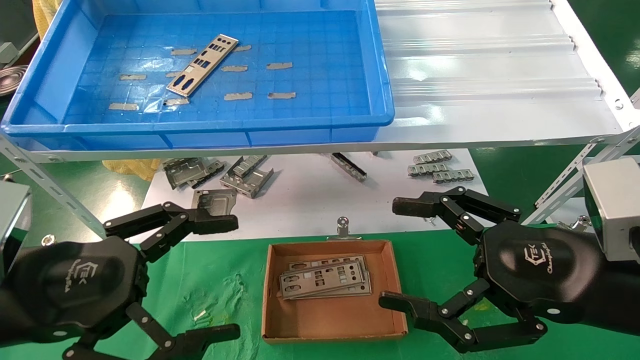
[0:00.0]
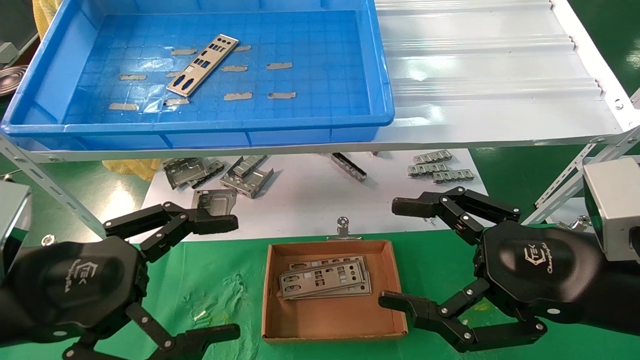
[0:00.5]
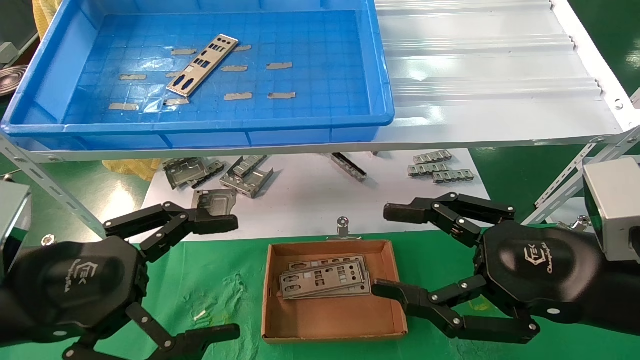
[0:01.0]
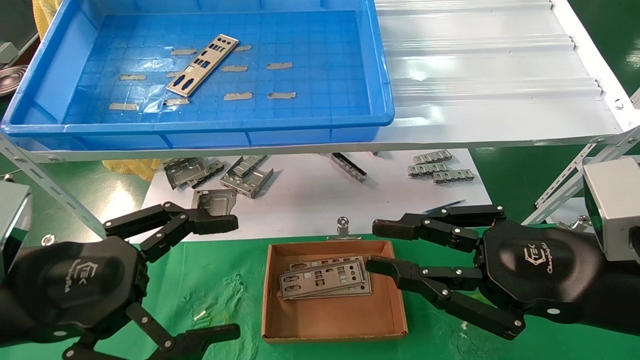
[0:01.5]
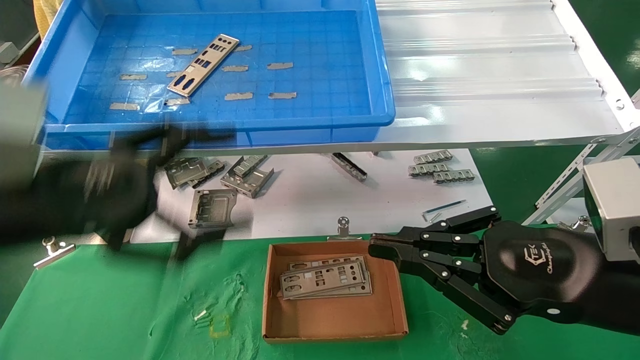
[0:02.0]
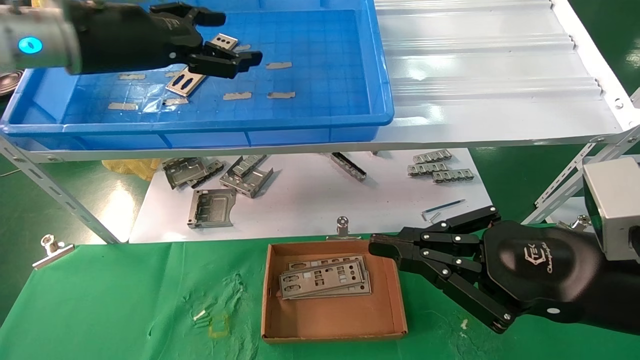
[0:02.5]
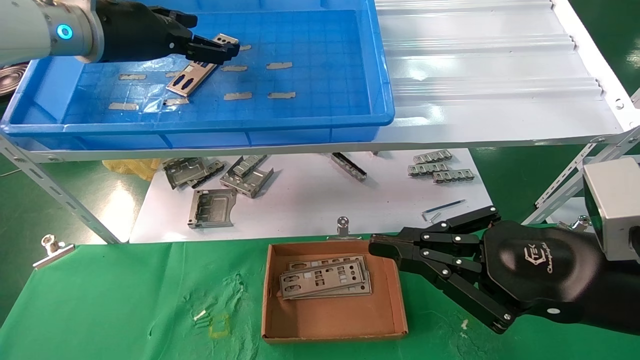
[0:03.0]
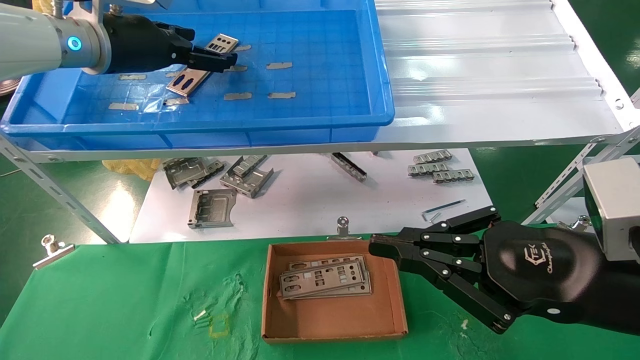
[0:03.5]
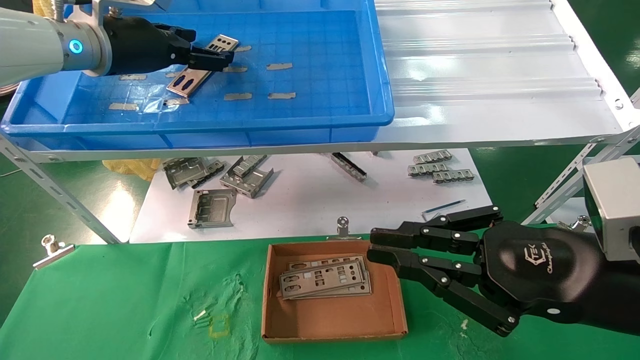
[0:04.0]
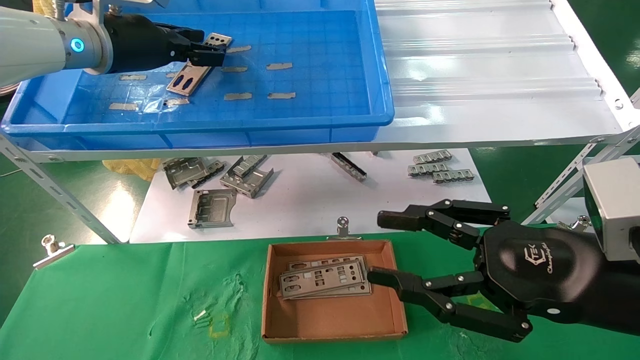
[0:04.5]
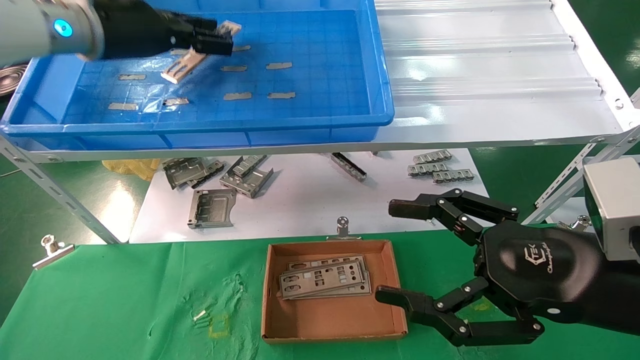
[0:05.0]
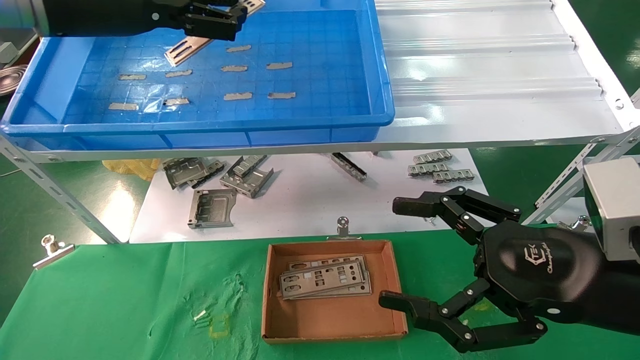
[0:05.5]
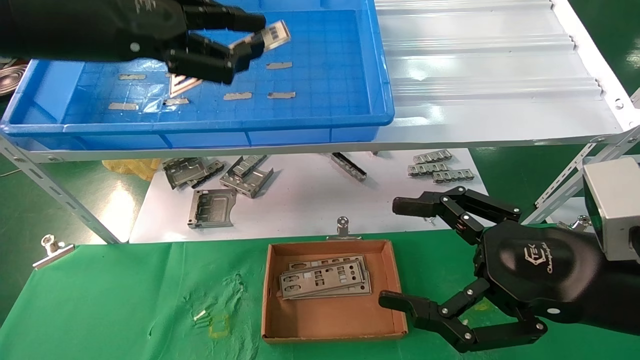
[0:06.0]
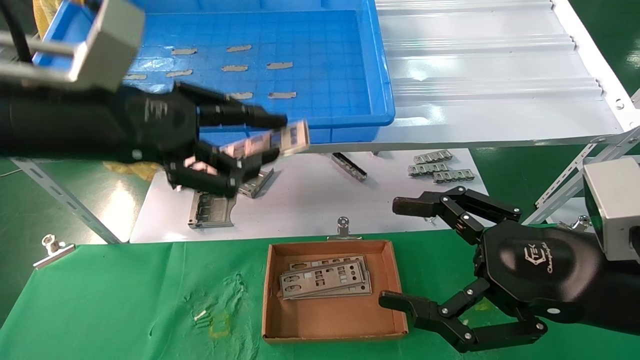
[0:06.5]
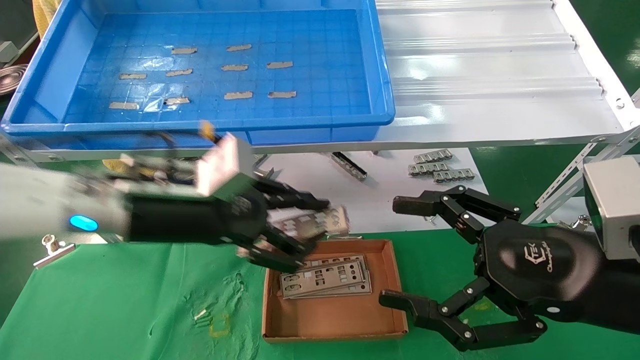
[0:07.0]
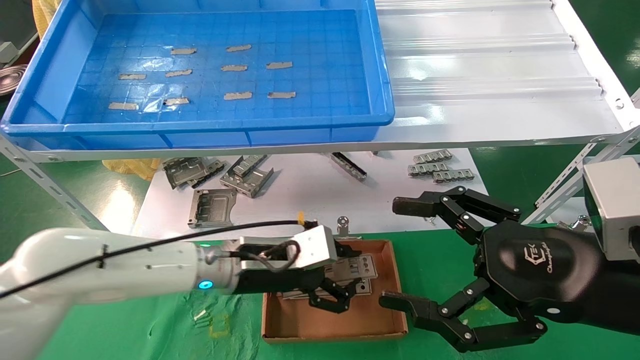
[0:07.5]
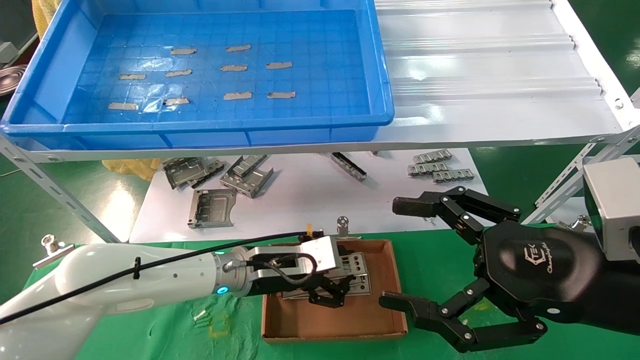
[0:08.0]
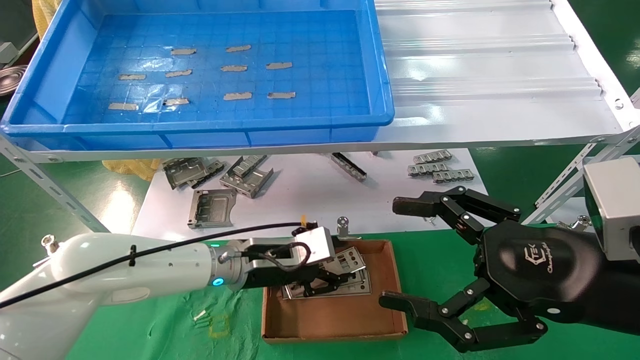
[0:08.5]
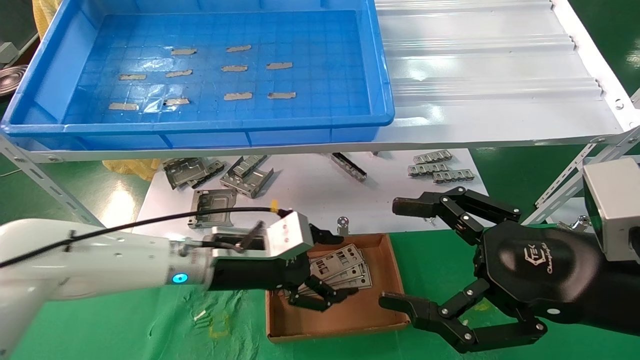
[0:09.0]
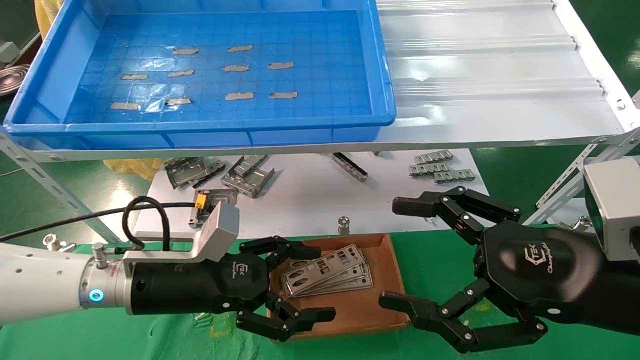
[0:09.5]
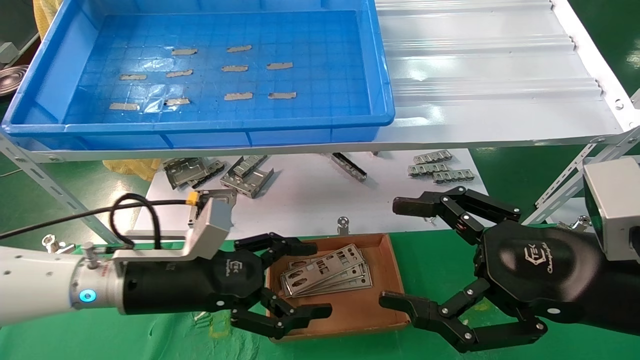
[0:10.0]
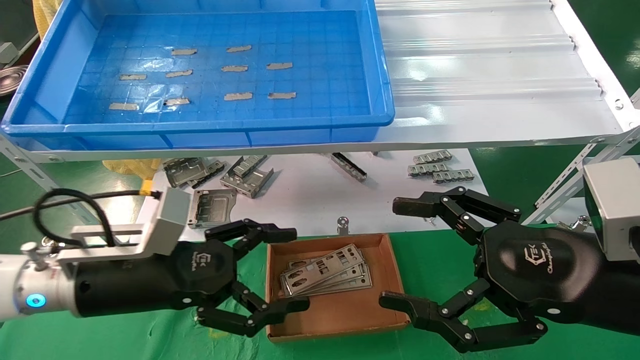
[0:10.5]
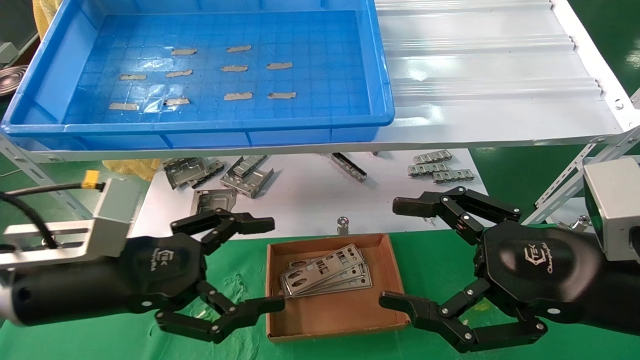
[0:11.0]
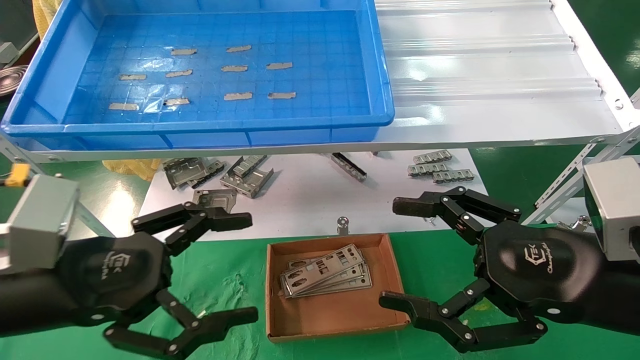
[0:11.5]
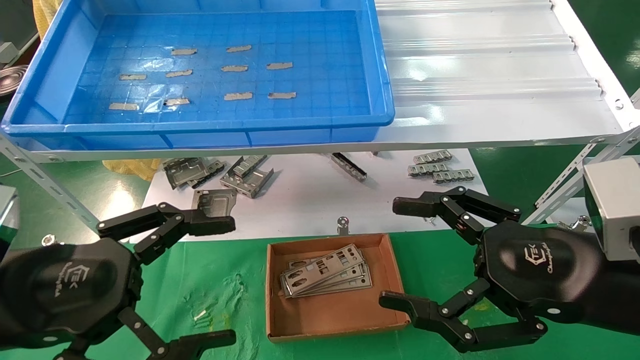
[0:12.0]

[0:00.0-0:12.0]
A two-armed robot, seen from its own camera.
Task of the whole recording: pick up the parts on the tray and put them in the cardboard box.
Step, 0:02.5 to 0:04.5: Pick up the IO bracket from the container box.
Step, 0:05.0 to 0:08.5: Place the IO bracket into the ingredient slot.
0:00.0 to 0:02.0: The right gripper closes its fingers, while the left gripper is displaced upward and forward by some 10 cm.
0:02.0 to 0:04.0: The left gripper shifts approximately 25 cm forward and upward.
0:04.0 to 0:06.0: The right gripper opens, while the left gripper travels backward by roughly 15 cm, and closes its fingers.
0:06.0 to 0:08.0: The left gripper travels downward and to the right by approximately 35 cm.
0:08.0 to 0:10.0: The left gripper heads to the left and backward, covering approximately 15 cm, and opens.
0:10.0 to 0:12.0: The left gripper moves backward, to the left and upward, some 15 cm.

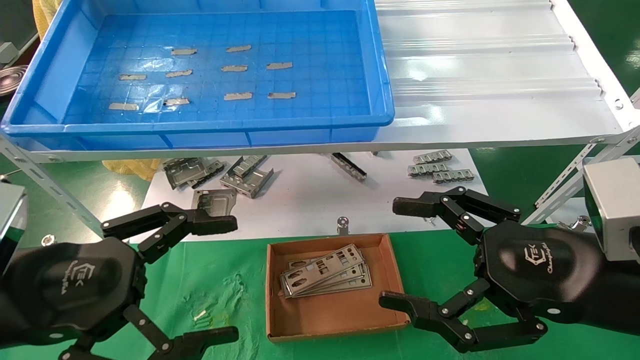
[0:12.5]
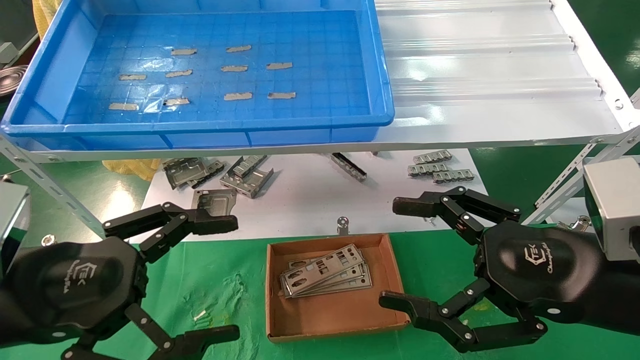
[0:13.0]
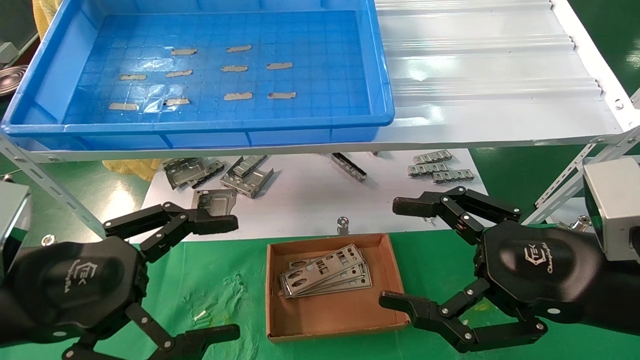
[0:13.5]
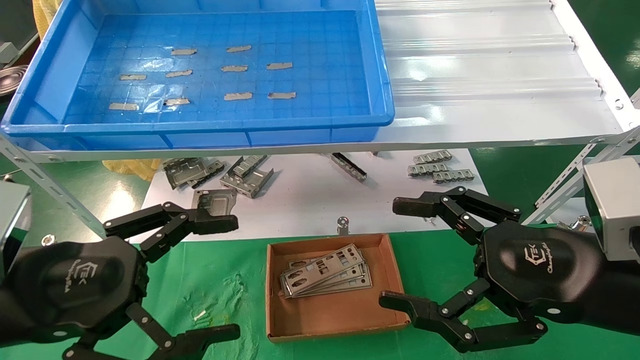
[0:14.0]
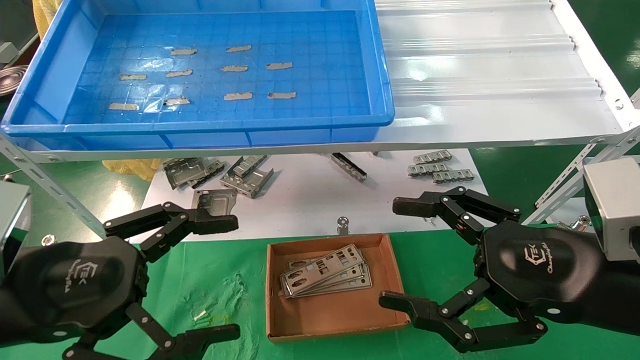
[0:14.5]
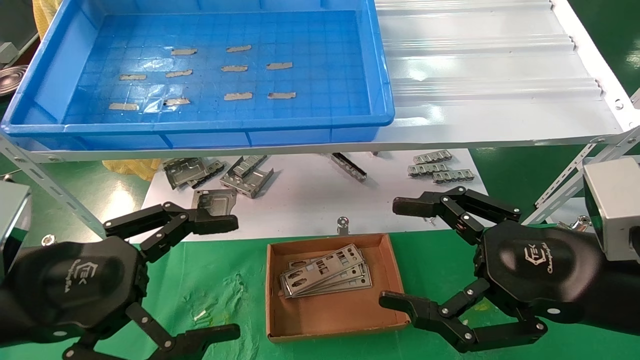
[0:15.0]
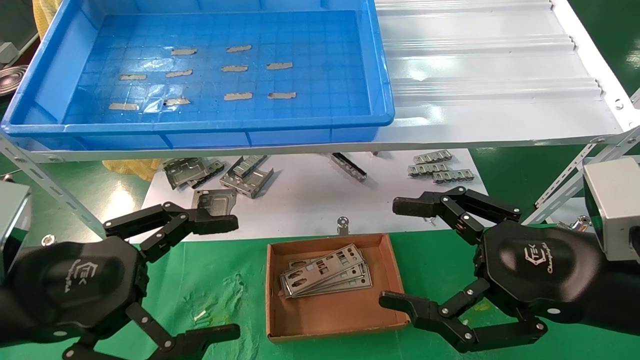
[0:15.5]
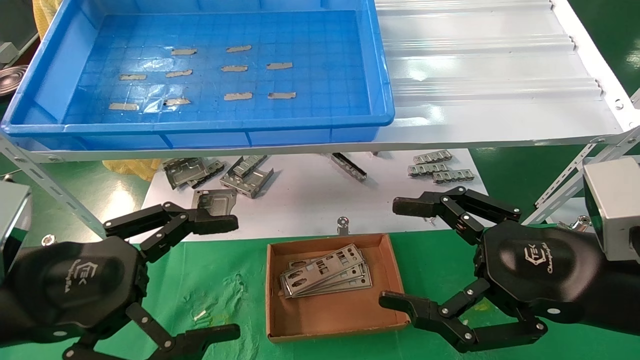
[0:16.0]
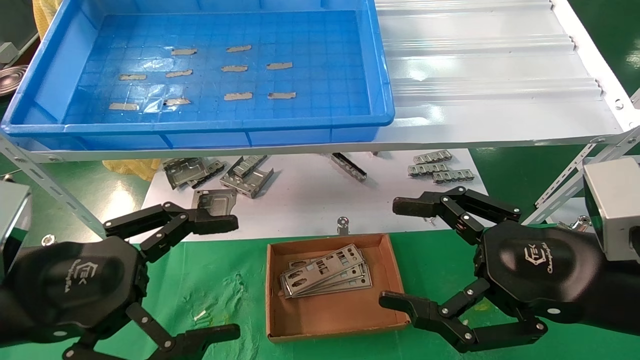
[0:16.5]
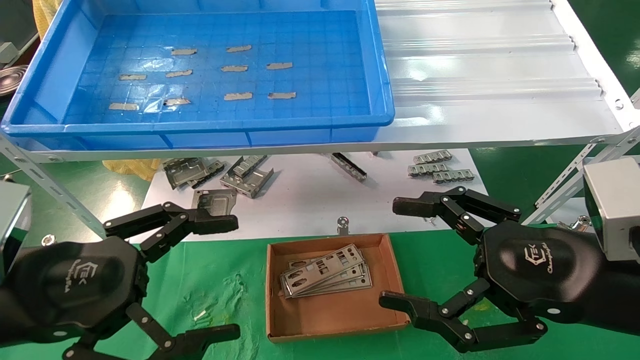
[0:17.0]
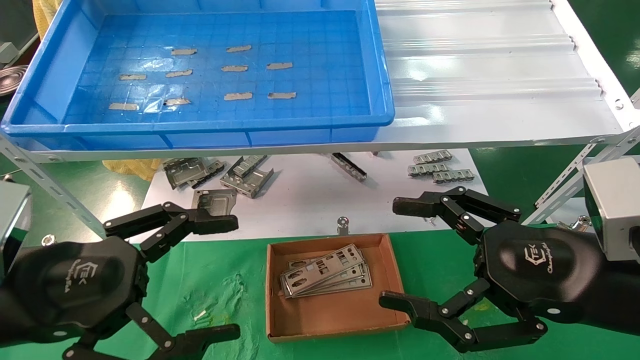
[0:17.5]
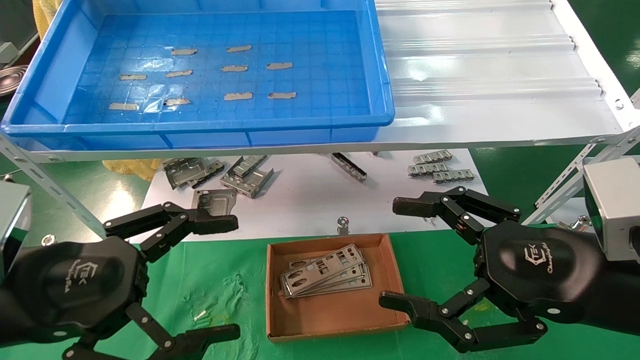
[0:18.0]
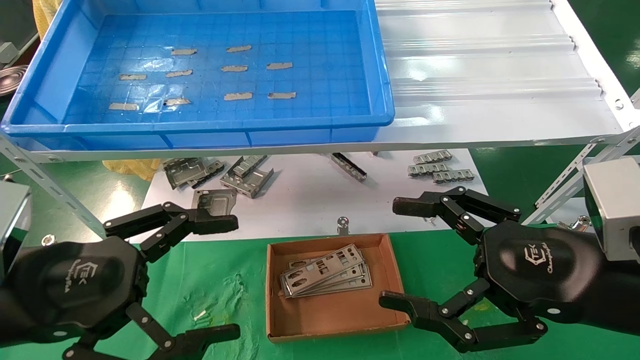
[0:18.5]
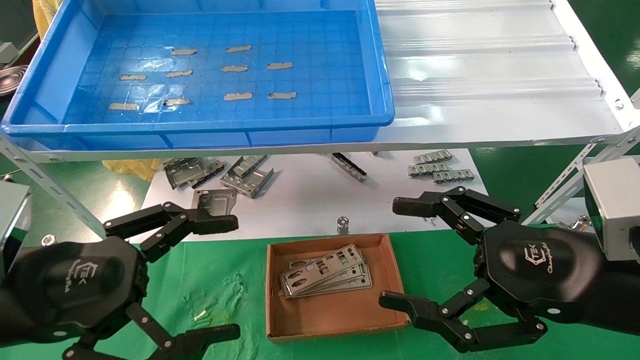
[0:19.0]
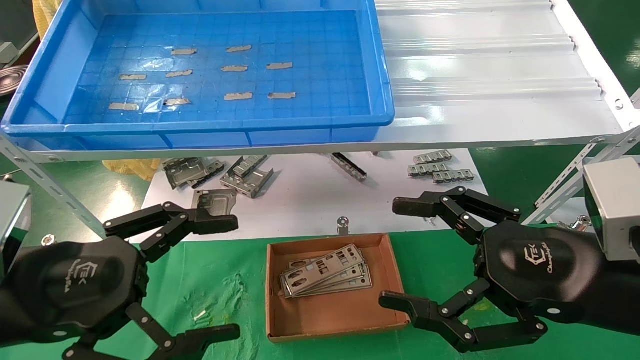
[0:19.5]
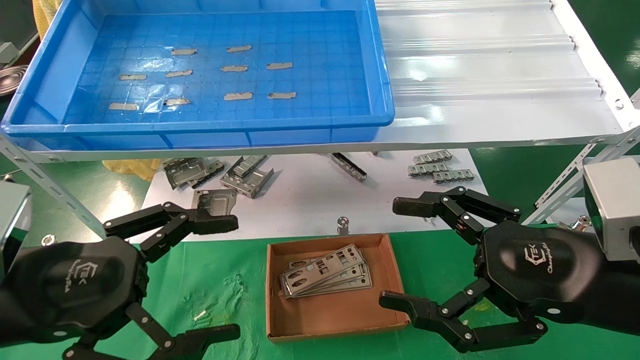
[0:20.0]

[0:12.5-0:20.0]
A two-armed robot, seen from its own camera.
Task of the whole recording: pick up the parts on the tray and put them in the cardboard box.
0:12.5 to 0:20.0: The two grippers keep their place.
